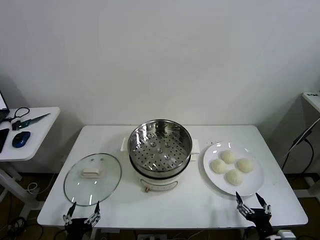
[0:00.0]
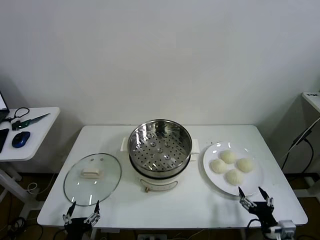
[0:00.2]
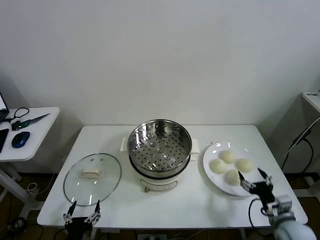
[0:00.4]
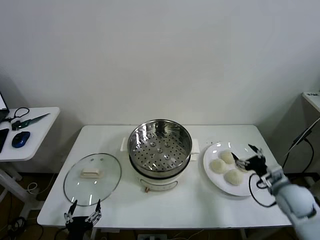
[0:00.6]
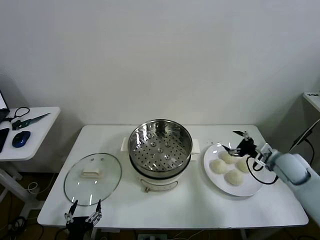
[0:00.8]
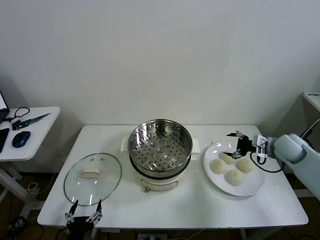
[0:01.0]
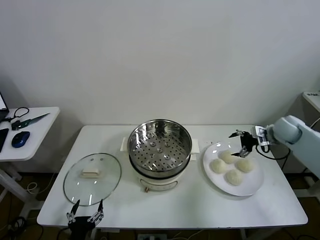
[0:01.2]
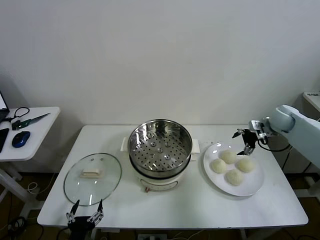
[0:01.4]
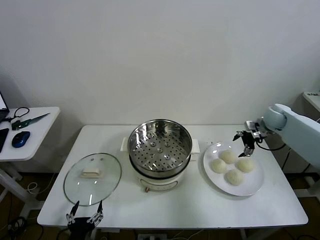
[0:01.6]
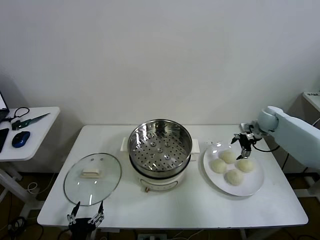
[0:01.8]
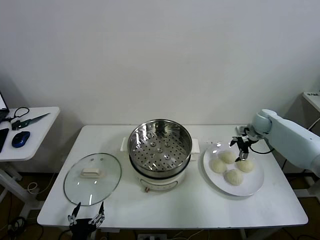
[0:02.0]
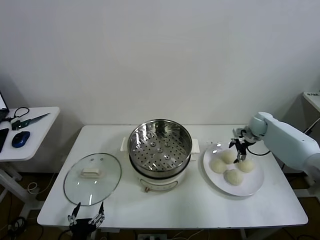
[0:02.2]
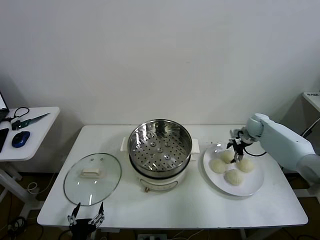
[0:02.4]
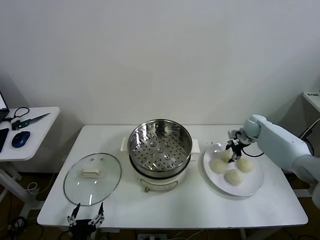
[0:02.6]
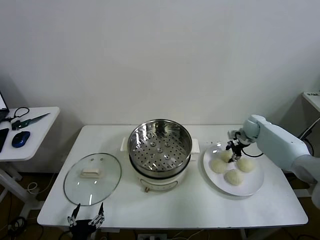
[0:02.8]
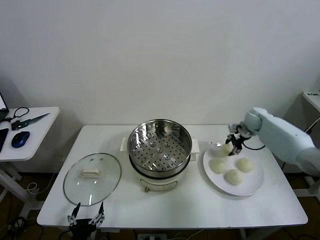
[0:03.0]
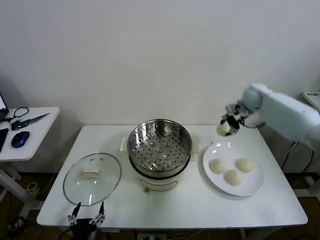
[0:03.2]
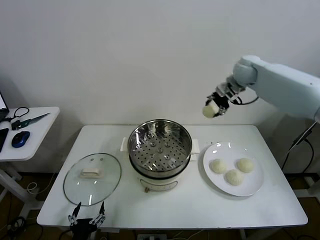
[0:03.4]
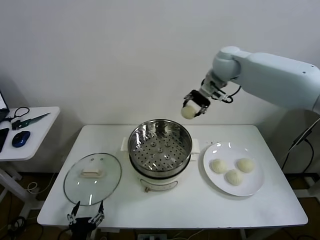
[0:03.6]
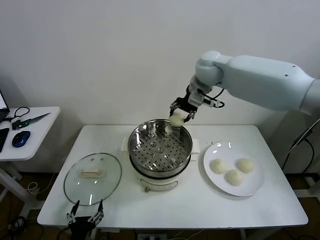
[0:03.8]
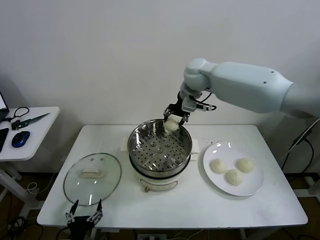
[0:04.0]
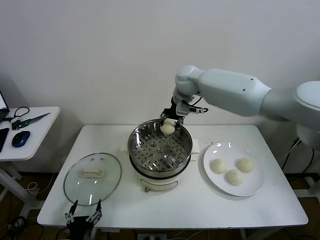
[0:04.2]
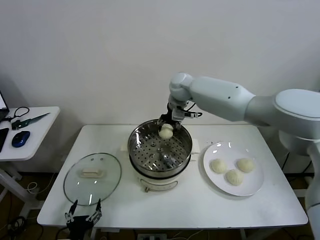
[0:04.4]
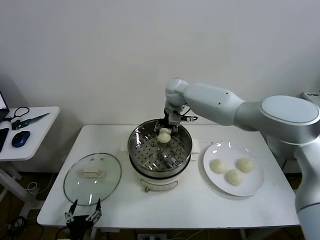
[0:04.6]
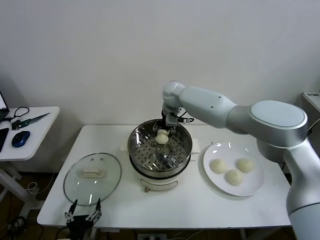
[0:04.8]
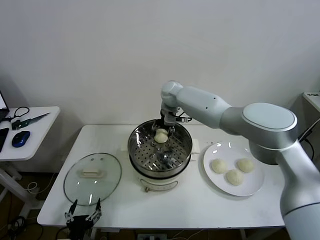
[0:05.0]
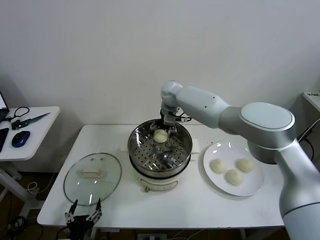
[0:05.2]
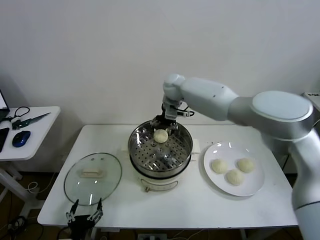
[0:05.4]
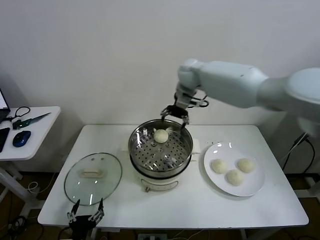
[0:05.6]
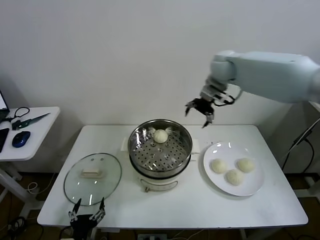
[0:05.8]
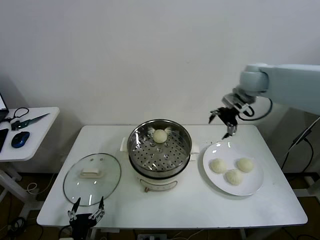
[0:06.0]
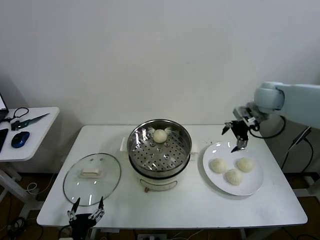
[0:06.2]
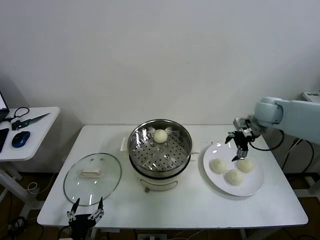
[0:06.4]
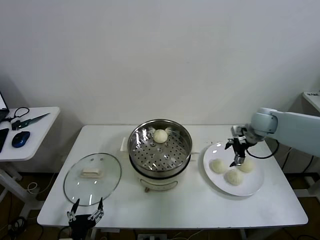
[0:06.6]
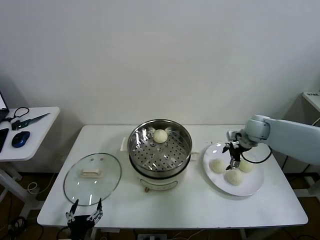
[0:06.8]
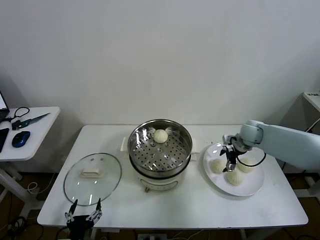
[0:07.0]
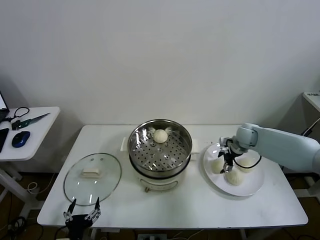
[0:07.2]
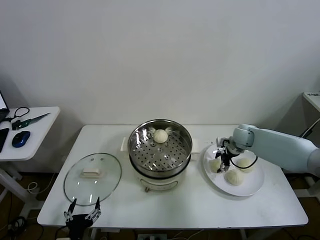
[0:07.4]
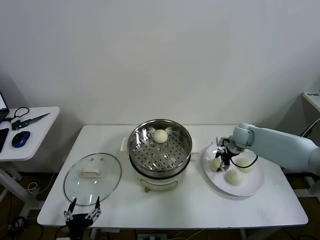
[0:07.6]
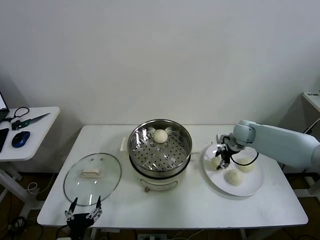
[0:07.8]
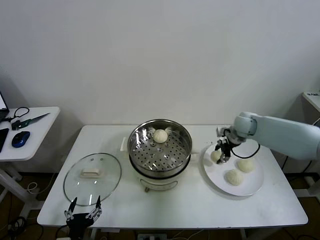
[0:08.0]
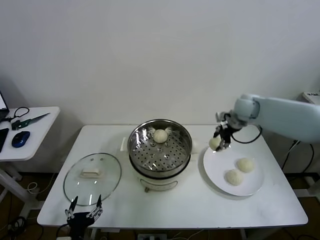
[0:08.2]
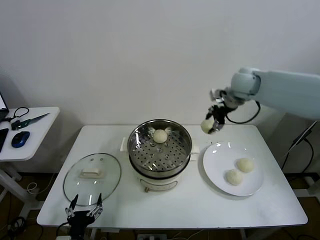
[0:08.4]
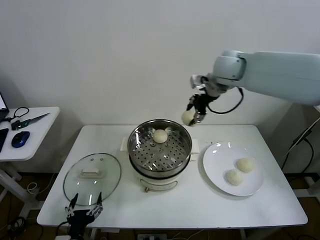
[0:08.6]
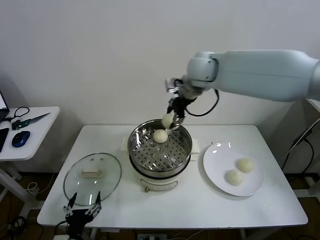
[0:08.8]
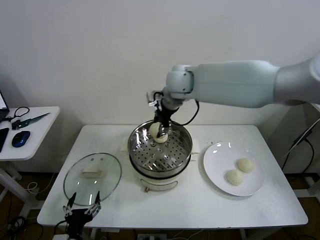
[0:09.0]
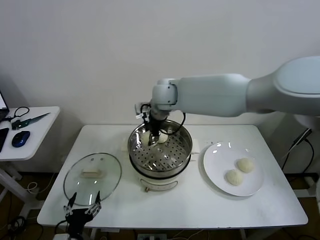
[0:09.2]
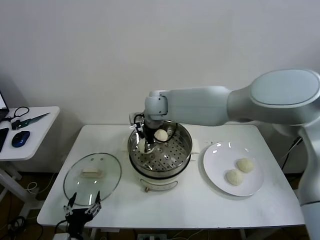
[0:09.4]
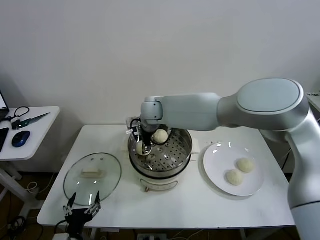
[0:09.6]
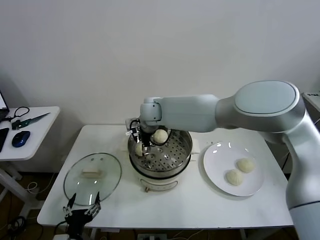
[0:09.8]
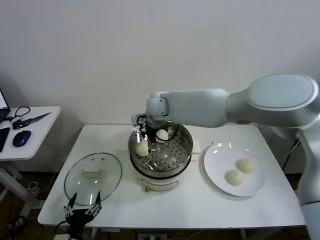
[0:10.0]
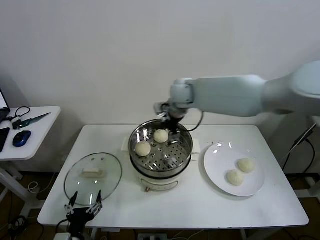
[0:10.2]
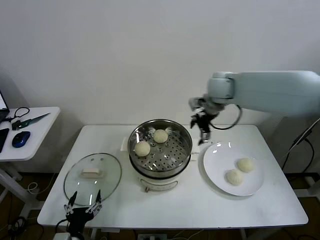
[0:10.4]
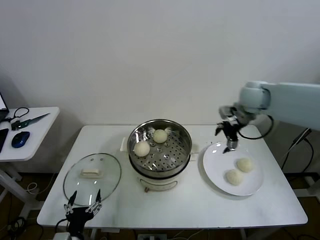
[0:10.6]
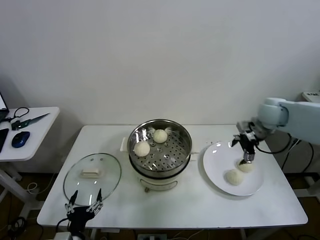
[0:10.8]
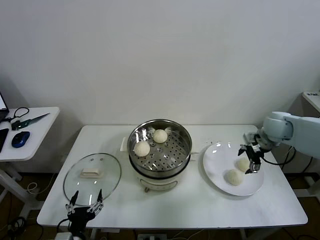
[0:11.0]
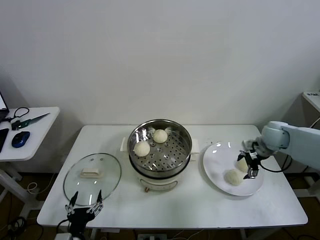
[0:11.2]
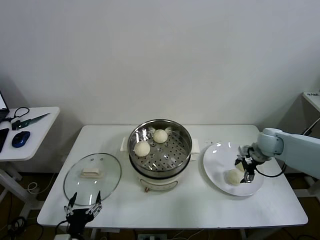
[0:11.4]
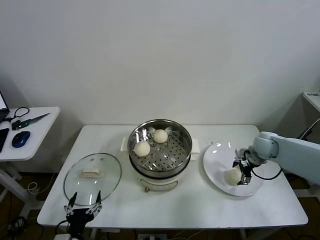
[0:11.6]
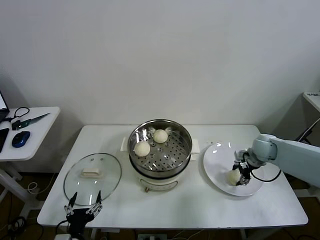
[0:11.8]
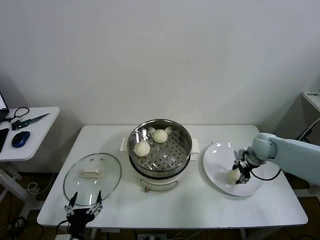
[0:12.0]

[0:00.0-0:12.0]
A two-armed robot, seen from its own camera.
Task of the whole recording: take steamed baozi put them in steamer then cover it.
Step, 0:00.0 to 0:02.6: Grasp the baozi in the plate with right gripper.
Step, 0:02.8 to 0:05.2: Place the baozi on the steamer with right gripper.
Step, 0:05.4 to 0:07.4: Grasp the baozi in the plate with right gripper.
Step, 0:07.6 to 0:10.0: Place the baozi on the steamer with right gripper.
Step, 0:10.2 to 0:11.8: Grasp the baozi in the plate with right gripper.
0:01.6 to 0:03.0: The right gripper is displaced to the left by about 5 cm, reaches some 10 cm downward, then returns, and closes its fingers.
0:03.0 to 0:04.4: The right gripper heads to the left, covering some 30 cm.
0:04.4 to 0:06.0: The right gripper is displaced to the right by approximately 25 cm, and opens up.
0:06.0 to 0:07.6: The right gripper shifts roughly 20 cm downward, and closes up.
0:07.6 to 0:09.0: The right gripper moves to the left and upward, approximately 35 cm.
0:09.0 to 0:10.4: The right gripper moves to the right, about 20 cm, and opens.
0:10.4 to 0:12.0: The right gripper moves downward and to the right, about 25 cm, and closes its fingers.

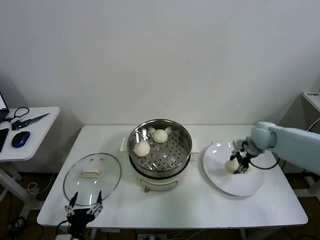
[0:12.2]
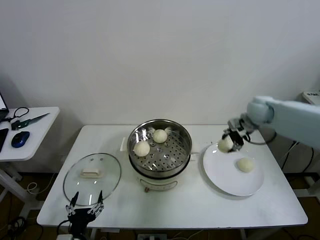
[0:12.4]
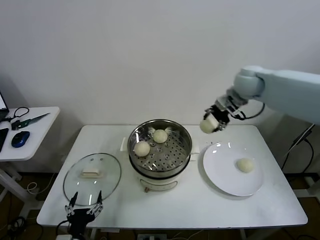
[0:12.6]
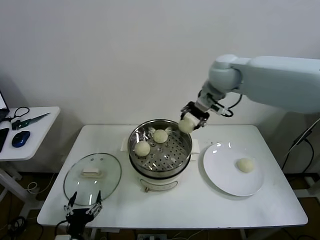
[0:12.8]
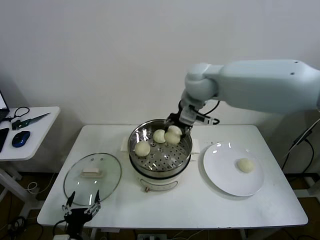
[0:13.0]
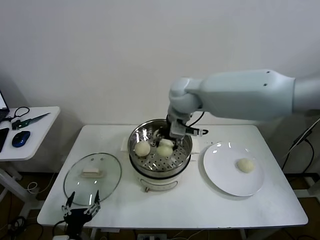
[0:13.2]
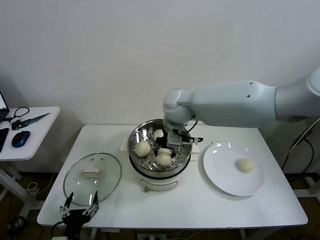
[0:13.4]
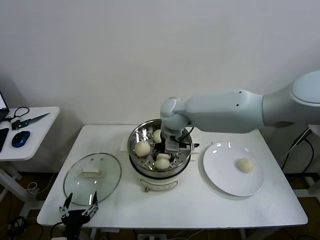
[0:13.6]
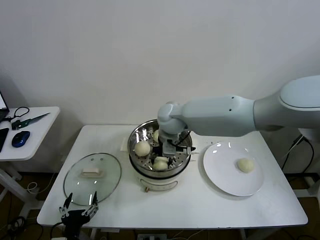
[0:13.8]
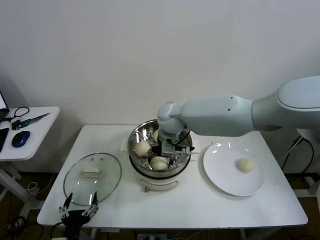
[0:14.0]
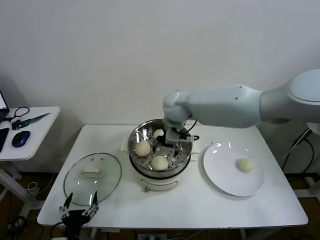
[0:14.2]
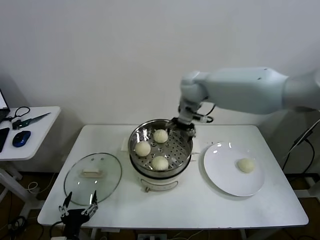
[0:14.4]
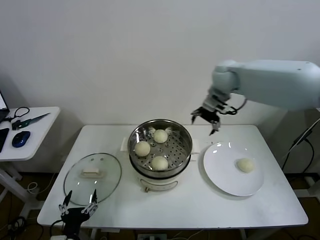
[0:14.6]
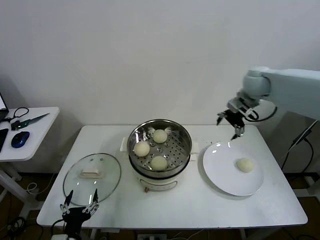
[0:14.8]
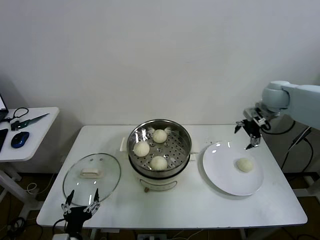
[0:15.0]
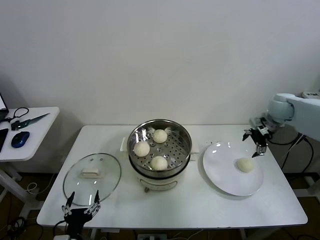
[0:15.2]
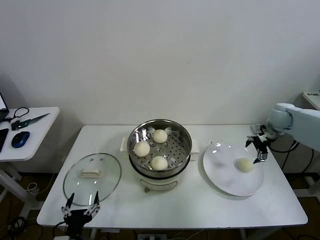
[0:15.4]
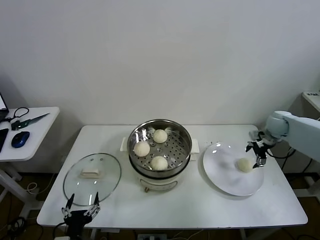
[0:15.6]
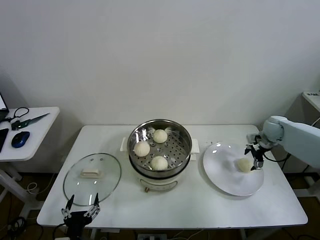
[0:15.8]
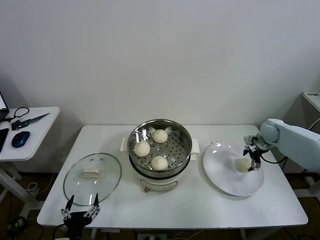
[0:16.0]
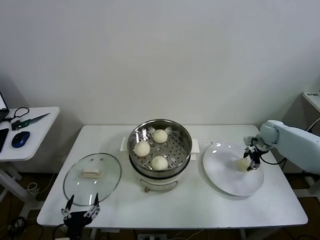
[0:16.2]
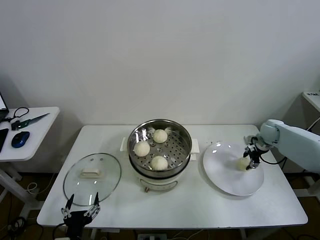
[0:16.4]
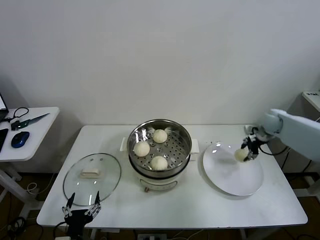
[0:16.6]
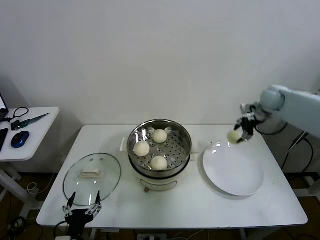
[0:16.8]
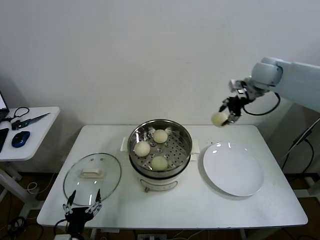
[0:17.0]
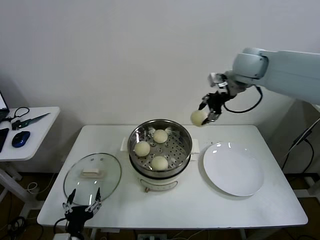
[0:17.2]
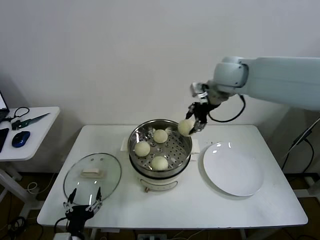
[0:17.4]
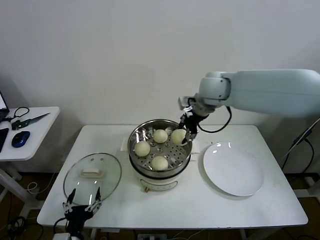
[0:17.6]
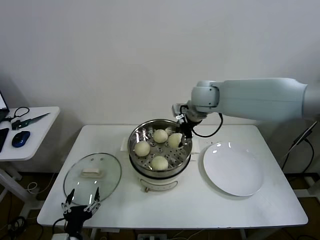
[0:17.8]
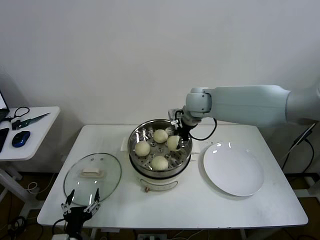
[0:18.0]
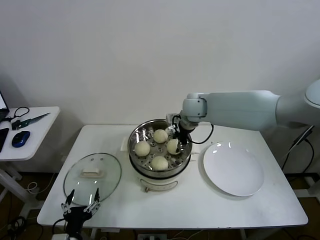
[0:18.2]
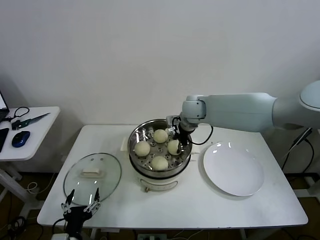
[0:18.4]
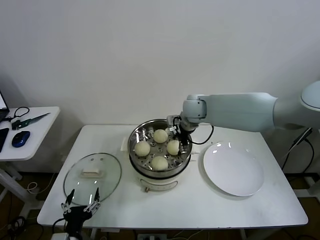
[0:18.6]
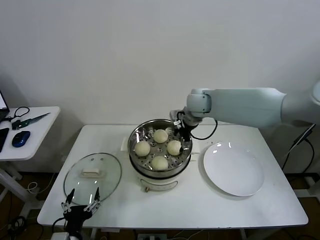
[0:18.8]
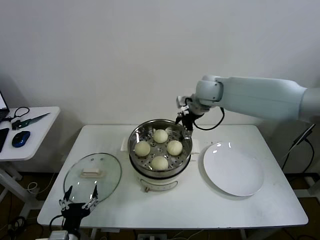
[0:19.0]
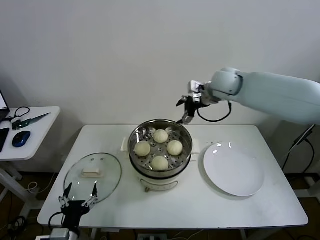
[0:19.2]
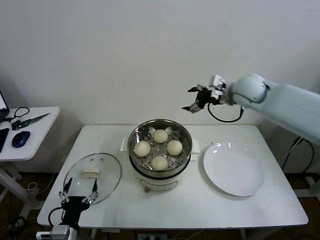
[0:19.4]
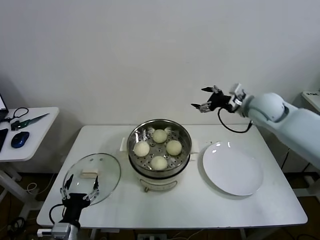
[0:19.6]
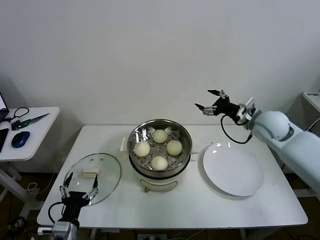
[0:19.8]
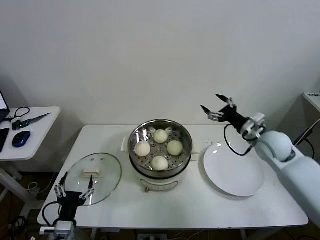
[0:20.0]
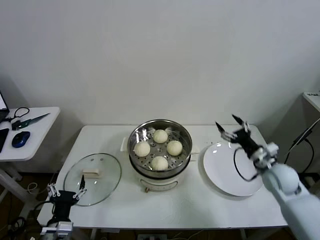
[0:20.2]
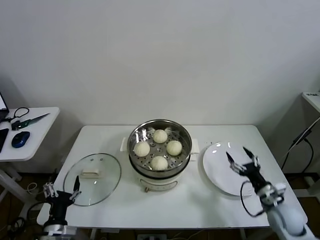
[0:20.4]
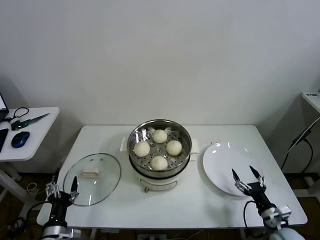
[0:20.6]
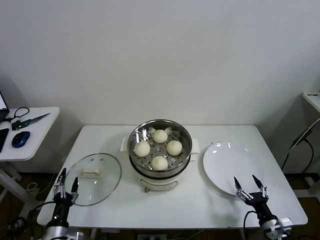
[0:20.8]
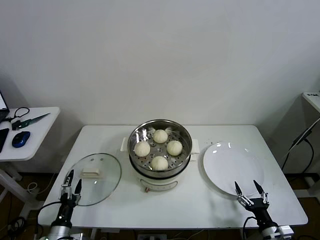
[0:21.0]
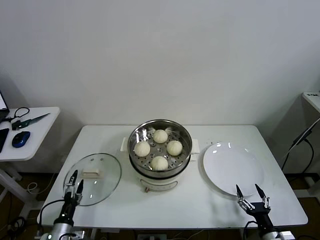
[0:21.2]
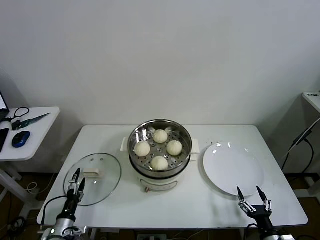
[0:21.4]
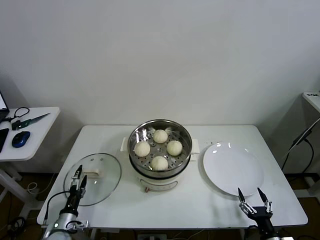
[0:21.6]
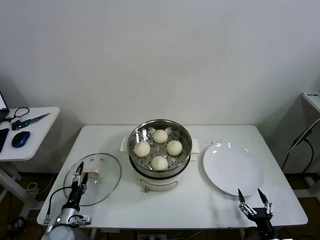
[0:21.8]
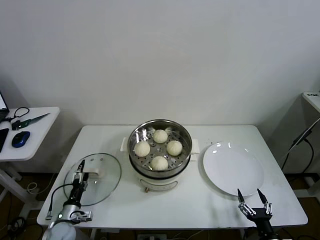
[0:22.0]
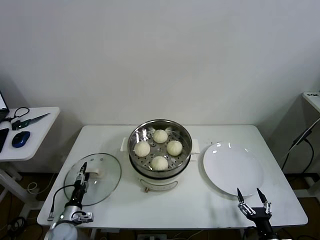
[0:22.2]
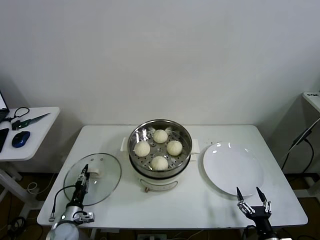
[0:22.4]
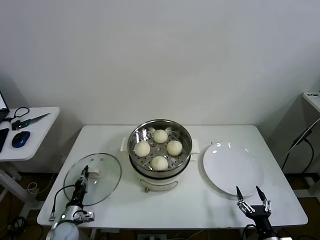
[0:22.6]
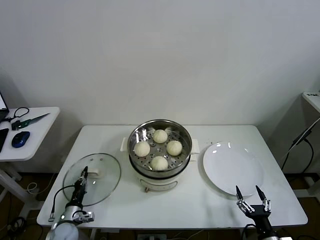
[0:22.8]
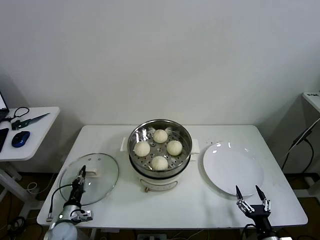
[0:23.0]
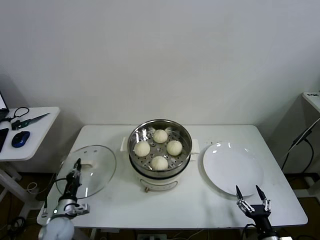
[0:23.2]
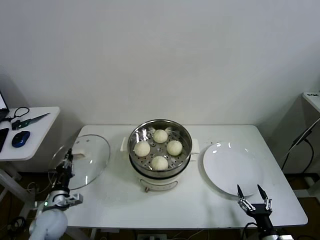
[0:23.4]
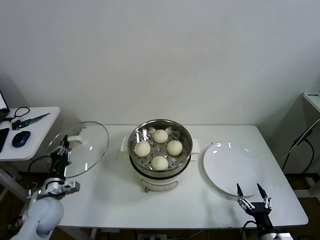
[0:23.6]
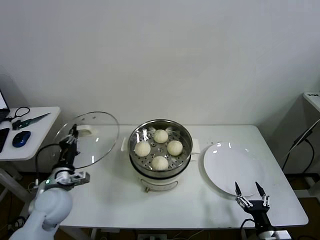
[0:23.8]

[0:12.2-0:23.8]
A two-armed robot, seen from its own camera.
Task of the whole recording: take steamed baozi put them in steamer then cover it.
Step, 0:12.2 to 0:14.2: Place the baozi on the steamer with right gripper.
Step, 0:14.4 to 0:16.2: Grasp the baozi in the plate with right gripper.
Step, 0:16.4 to 0:18.8: Place the baozi on the steamer with right gripper.
Step, 0:19.0 to 0:22.8: Grasp the pot lid with left gripper.
0:12.2 to 0:13.6: The right gripper moves to the left, some 35 cm.
0:13.6 to 0:15.0: The right gripper is displaced to the right by roughly 35 cm, and opens up.
0:15.0 to 0:16.6: The right gripper is displaced downward by roughly 10 cm, and closes up.
0:16.6 to 0:18.0: The right gripper moves to the left, about 30 cm.
0:18.0 to 0:19.4: The right gripper heads to the right, covering about 15 cm, and opens up.
0:19.4 to 0:21.0: The right gripper goes approximately 50 cm downward and backward. The left gripper moves downward and to the left, roughly 10 cm.
0:21.0 to 0:22.4: The left gripper shifts roughly 10 cm forward and downward, and closes.
0:22.4 to 0:23.8: The left gripper goes about 20 cm upward, and closes.
